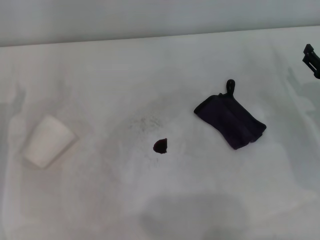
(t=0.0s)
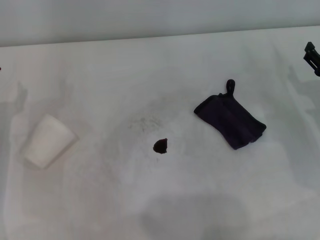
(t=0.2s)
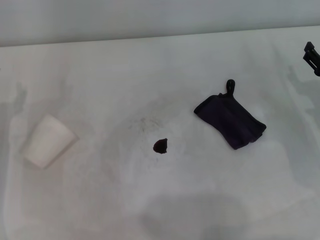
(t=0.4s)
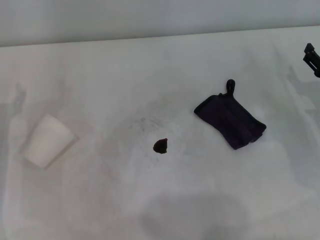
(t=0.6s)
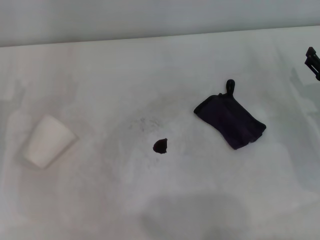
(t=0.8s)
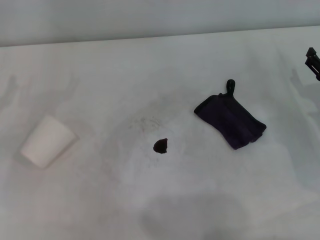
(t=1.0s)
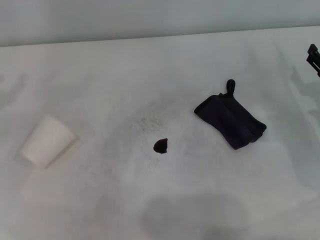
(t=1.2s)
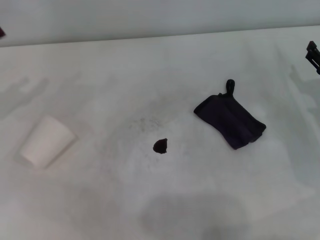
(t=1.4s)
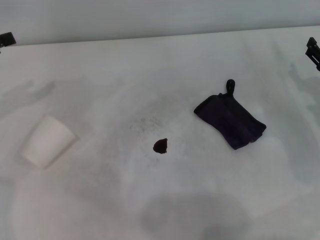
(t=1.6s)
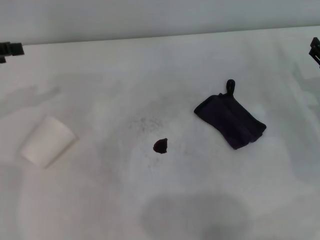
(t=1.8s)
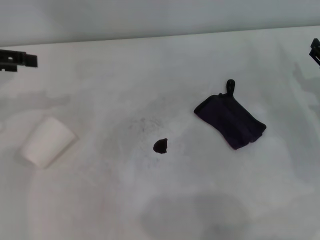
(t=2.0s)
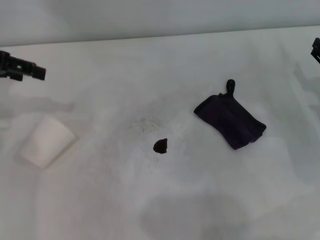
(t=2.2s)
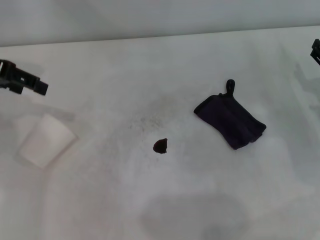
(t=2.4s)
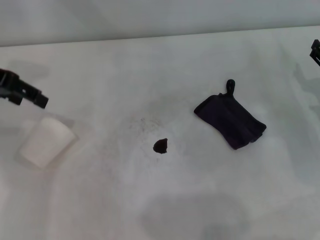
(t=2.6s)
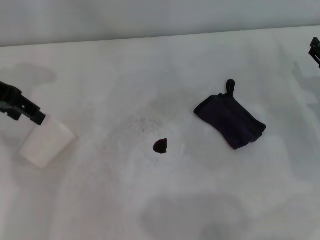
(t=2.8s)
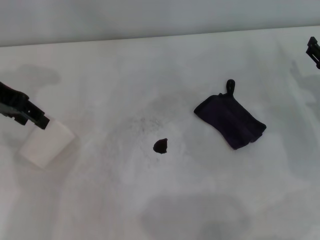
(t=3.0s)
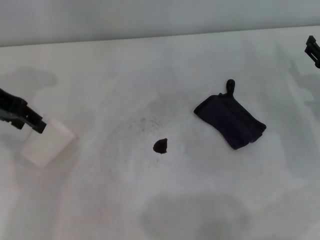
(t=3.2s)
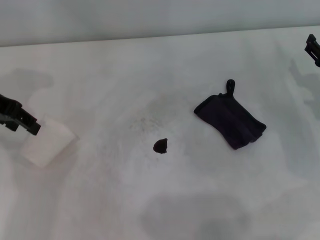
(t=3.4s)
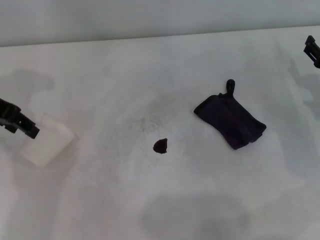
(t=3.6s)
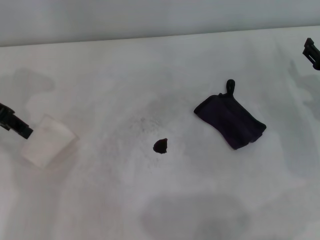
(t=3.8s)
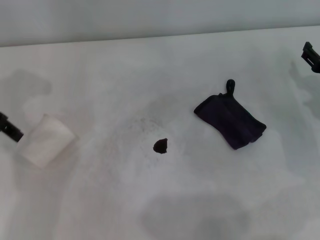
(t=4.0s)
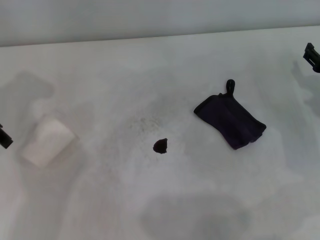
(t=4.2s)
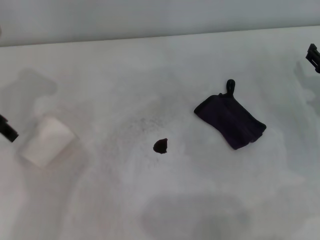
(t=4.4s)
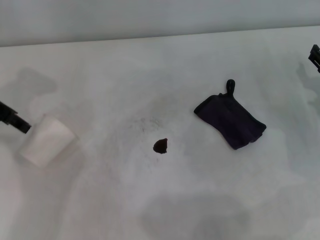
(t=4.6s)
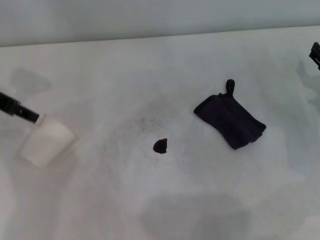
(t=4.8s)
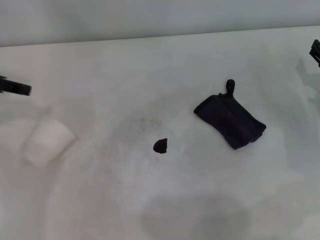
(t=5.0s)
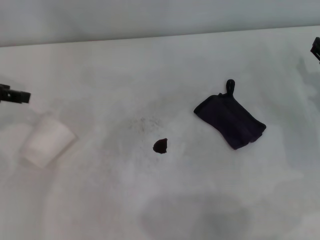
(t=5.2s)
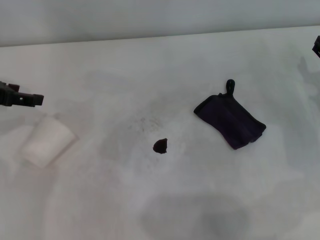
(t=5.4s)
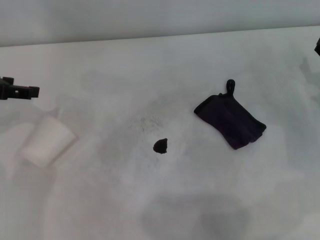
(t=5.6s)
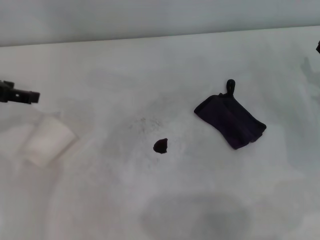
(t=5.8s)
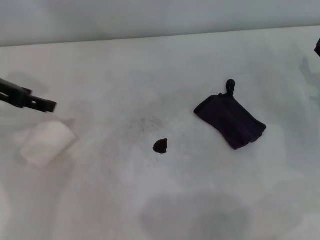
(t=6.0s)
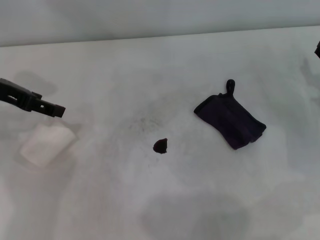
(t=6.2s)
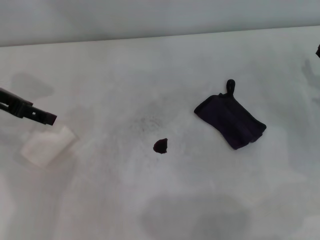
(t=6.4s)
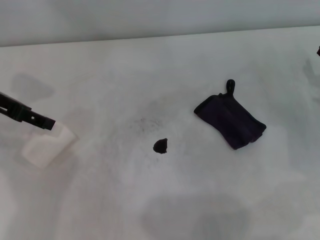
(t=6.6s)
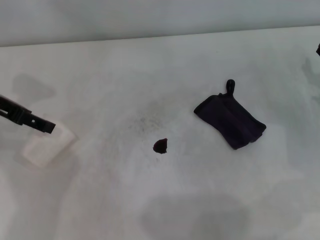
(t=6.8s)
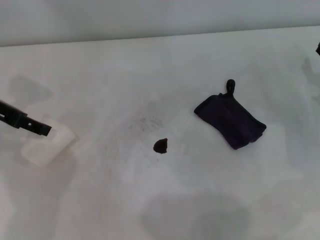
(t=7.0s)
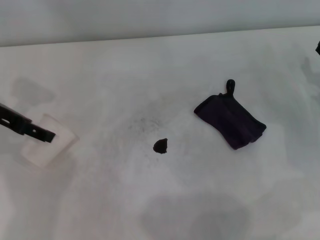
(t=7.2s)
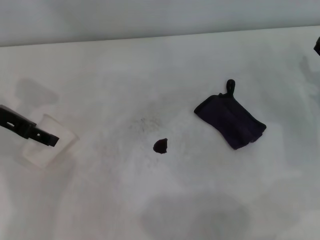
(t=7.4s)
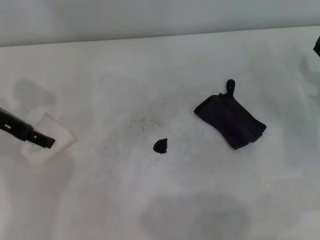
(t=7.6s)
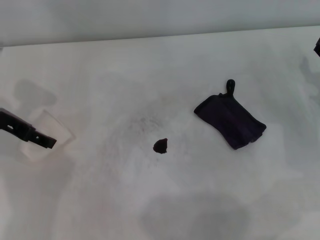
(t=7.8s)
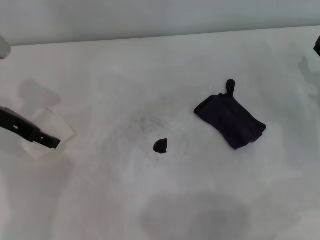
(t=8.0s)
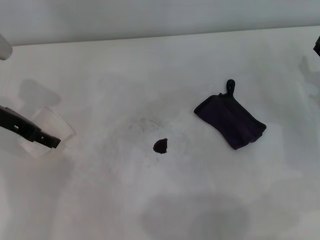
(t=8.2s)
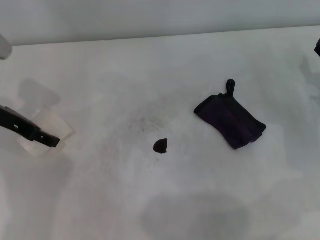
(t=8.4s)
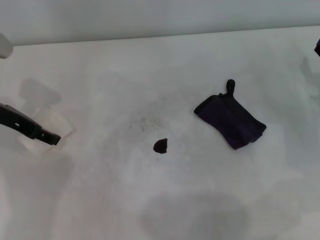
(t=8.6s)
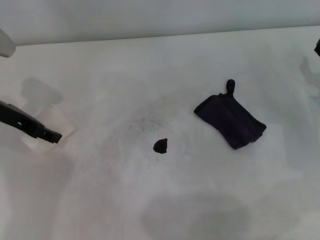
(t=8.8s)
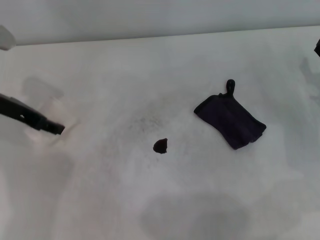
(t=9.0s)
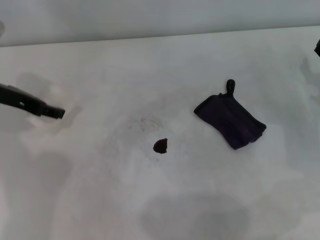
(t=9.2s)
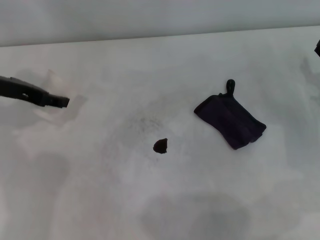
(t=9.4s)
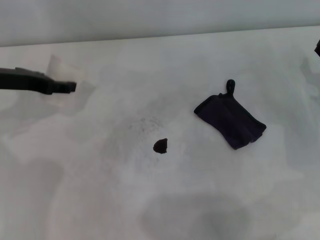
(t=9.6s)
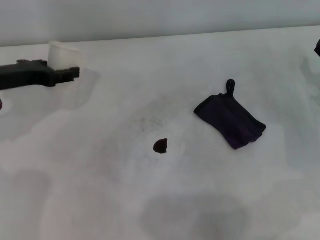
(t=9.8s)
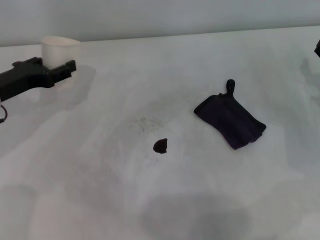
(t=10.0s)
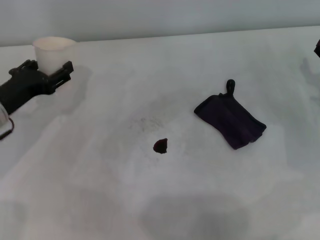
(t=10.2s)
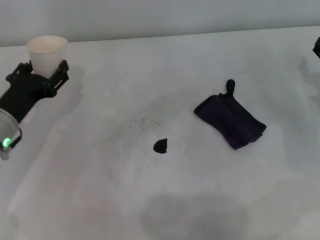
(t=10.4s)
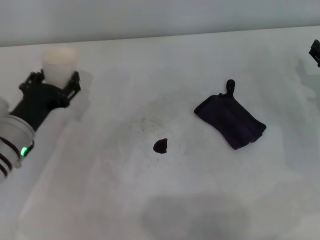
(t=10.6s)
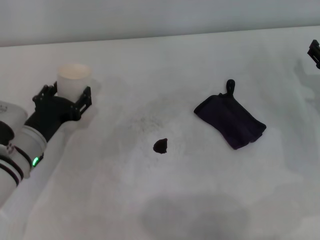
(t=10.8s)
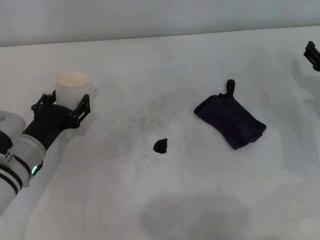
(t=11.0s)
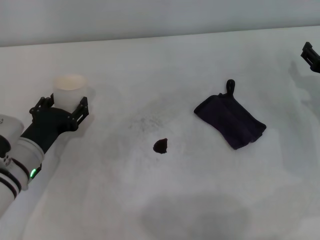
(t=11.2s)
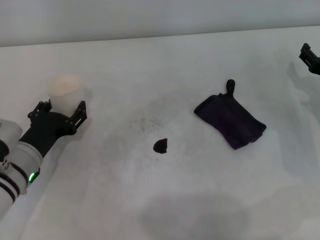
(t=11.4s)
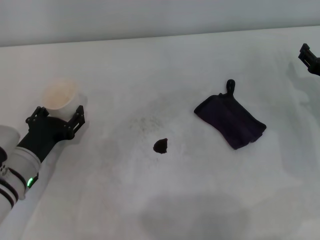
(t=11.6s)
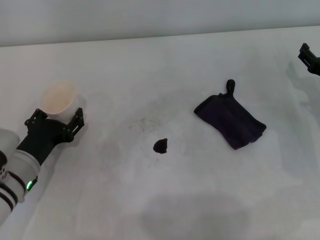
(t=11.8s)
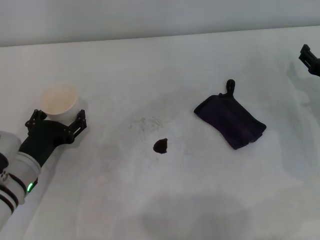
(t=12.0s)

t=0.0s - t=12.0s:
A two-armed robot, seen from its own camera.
Step, t=0.0s - t=8.6s: Grasp the paper cup with the left gripper.
t=1.6s - t=3.0s: The left gripper is displaced to the right and upward by roughly 10 cm, and closes its fingers.
t=4.4s - t=6.0s: The left gripper opens.
t=6.0s - t=7.6s: There are only small adjustments of the grippers.
t=7.6s - t=9.0s: The left gripper closes its fingers.
t=9.0s - t=10.4s: The left gripper goes approximately 10 cm downward and backward.
t=10.4s - t=12.0s: The left gripper moves backward, about 5 cm.

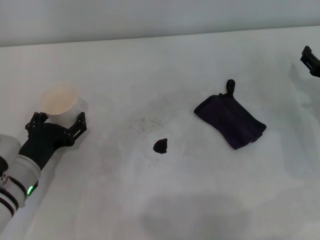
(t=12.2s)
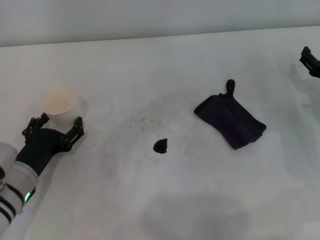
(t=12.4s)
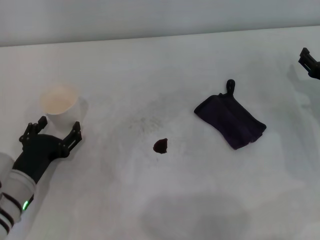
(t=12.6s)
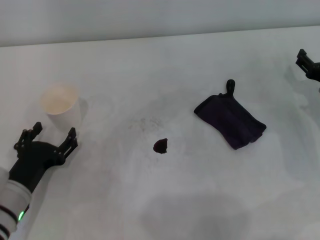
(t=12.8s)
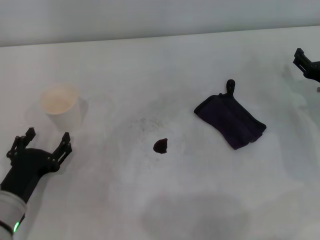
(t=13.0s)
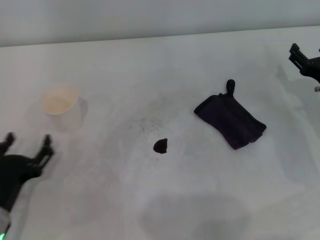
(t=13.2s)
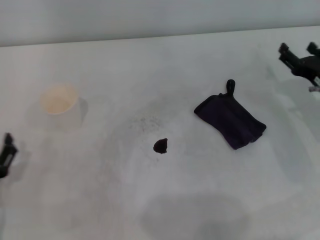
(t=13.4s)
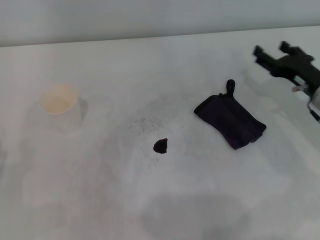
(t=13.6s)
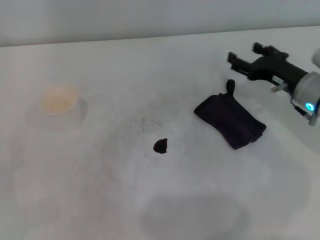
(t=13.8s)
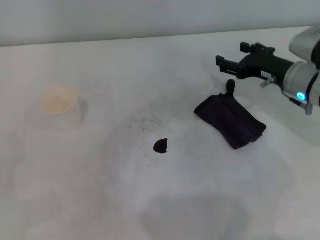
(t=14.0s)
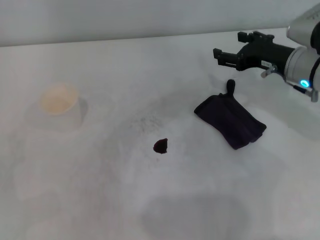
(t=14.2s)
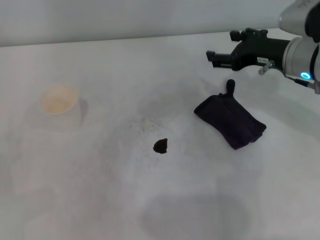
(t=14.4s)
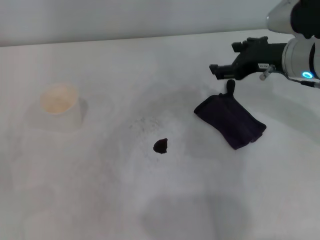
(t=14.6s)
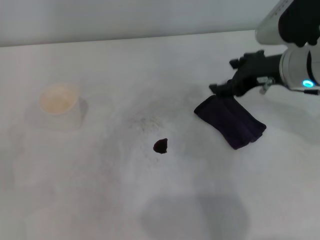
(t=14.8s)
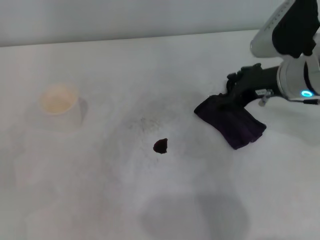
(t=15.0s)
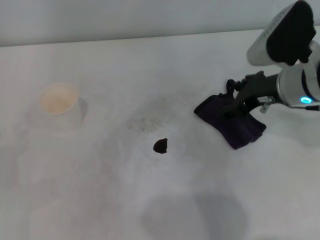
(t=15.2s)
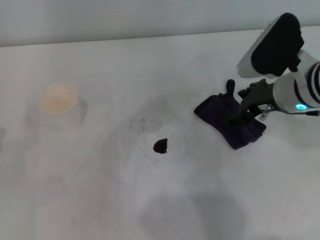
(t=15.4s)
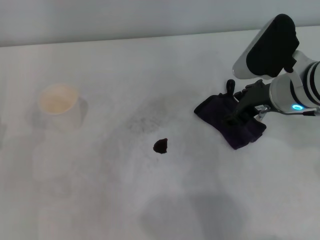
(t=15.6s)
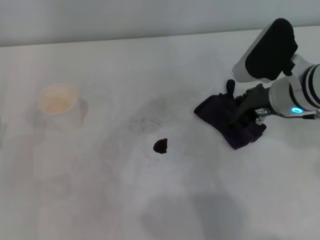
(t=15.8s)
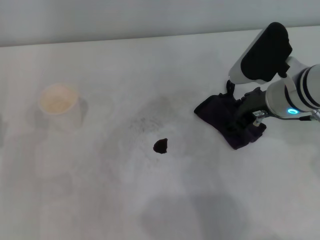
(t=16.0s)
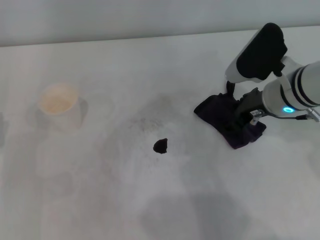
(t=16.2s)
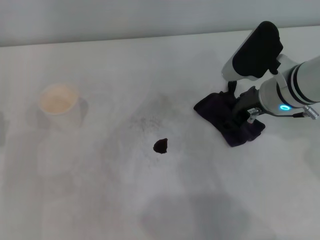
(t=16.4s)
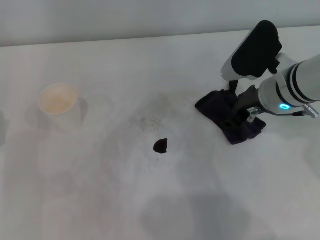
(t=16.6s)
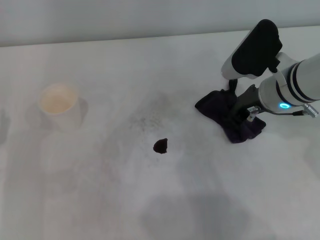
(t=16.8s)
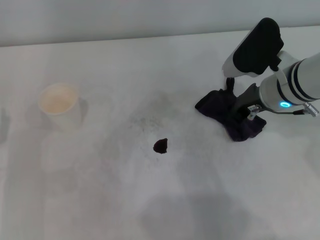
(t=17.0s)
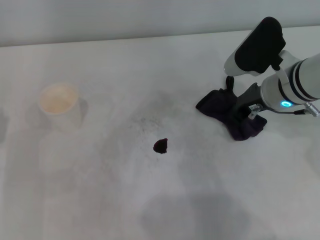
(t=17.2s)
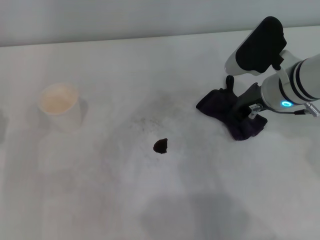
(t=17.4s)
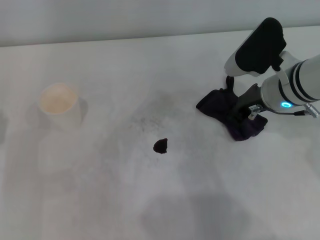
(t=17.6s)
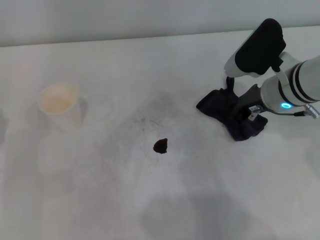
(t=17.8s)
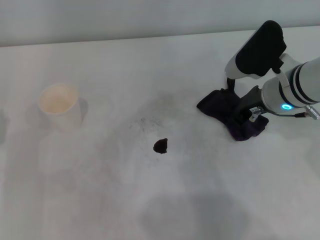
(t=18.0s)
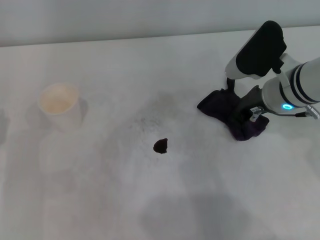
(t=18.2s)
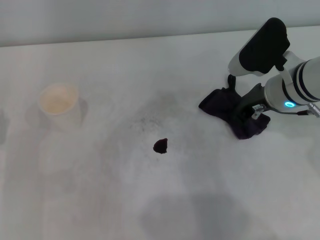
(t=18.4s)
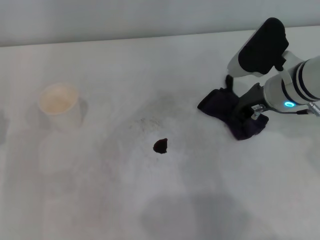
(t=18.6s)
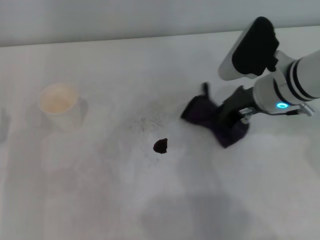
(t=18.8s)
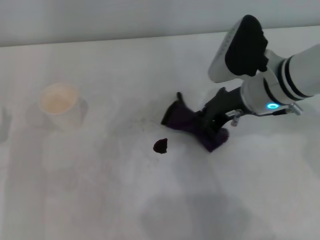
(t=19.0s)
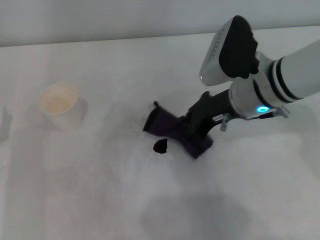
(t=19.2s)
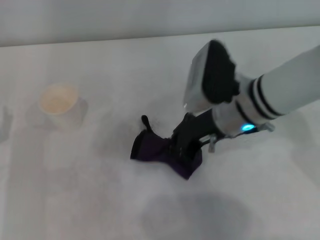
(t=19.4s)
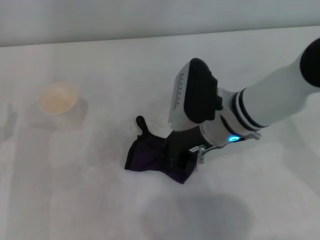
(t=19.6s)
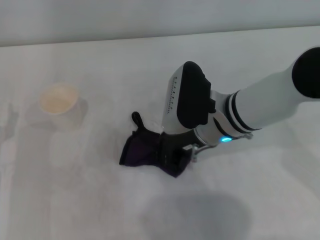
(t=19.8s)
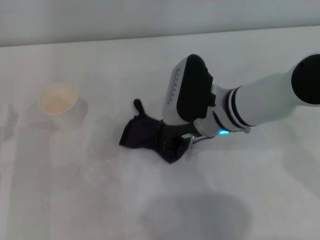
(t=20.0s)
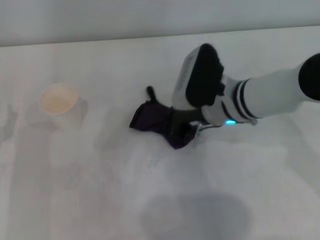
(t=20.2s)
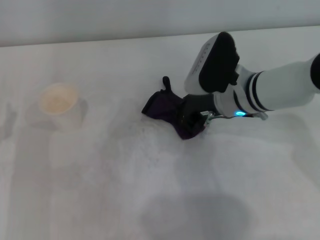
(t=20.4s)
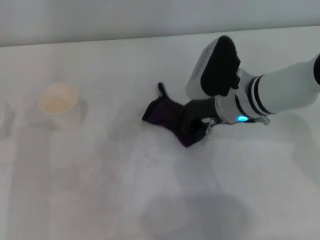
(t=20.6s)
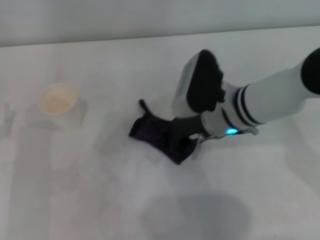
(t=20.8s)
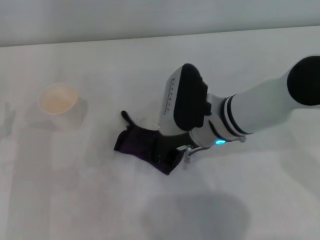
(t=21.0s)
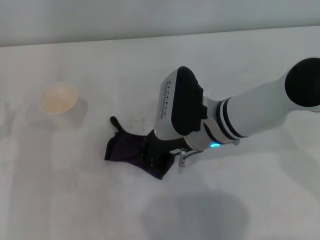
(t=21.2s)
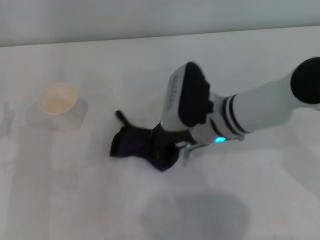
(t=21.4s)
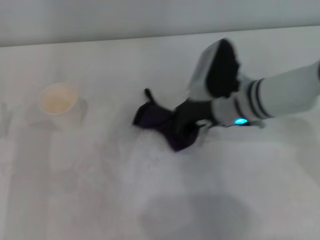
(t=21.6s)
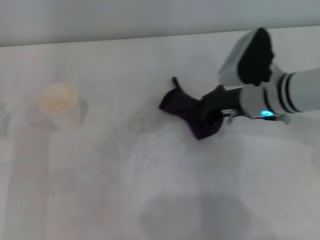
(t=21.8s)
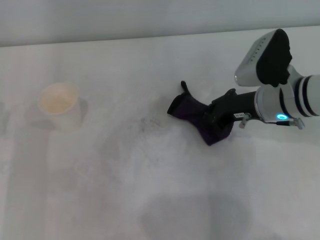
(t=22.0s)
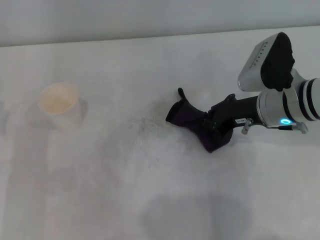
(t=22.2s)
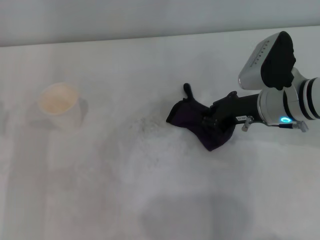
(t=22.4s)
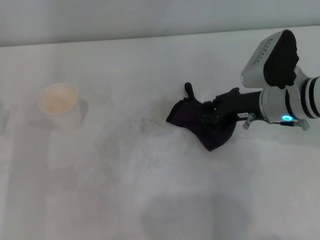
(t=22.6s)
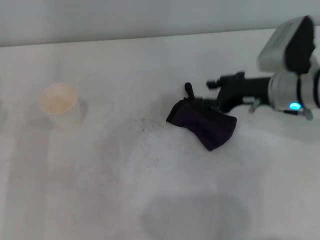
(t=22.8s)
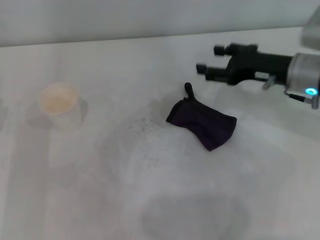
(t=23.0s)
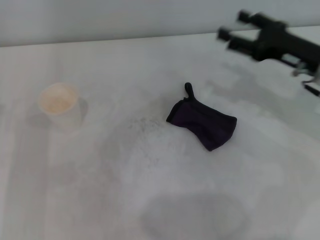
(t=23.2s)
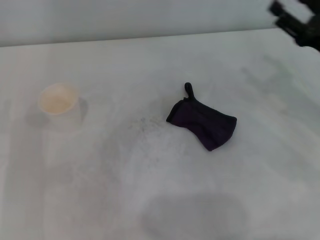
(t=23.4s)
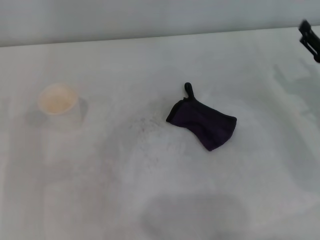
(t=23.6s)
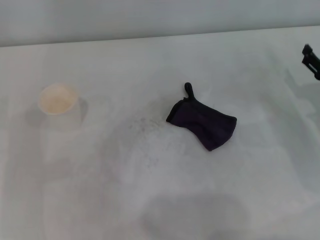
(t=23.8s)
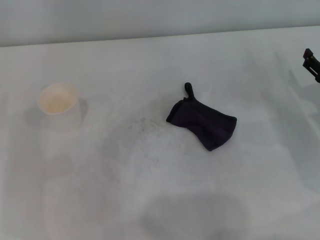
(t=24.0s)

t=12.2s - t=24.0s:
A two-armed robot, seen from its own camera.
Step, t=12.6s - t=18.4s: Grasp the rag with the right gripper.
Step, t=18.6s - t=21.6s: Wipe the stains off the table with the right gripper.
Step, t=22.0s - t=22.4s: Place the rag on the table with the right gripper.
t=12.2s - t=13.6s: The left gripper is displaced backward and to the left by about 10 cm.
t=13.6s - t=15.2s: The right gripper heads upward and to the left, covering about 10 cm.
t=15.2s - t=16.6s: The grippers move only a little.
t=16.6s - t=18.2s: The right gripper closes.
t=18.2s - t=19.6s: The right gripper travels to the left by roughly 10 cm.
t=19.6s - t=21.0s: The grippers make only small movements.
t=21.0s - t=22.6s: The right gripper heads to the right, covering about 10 cm.
t=22.6s - t=24.0s: The right gripper moves to the right and downward, approximately 15 cm, and opens its fingers.
